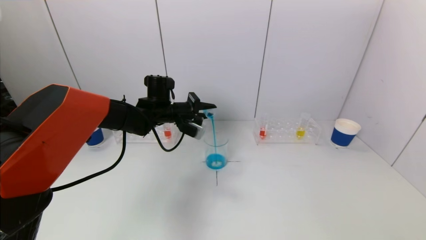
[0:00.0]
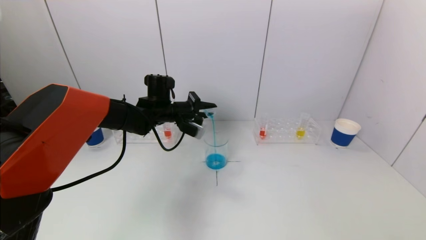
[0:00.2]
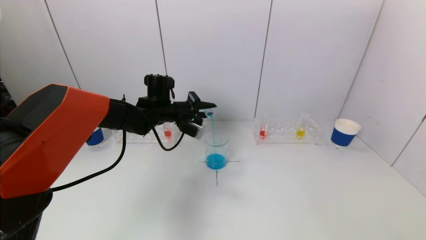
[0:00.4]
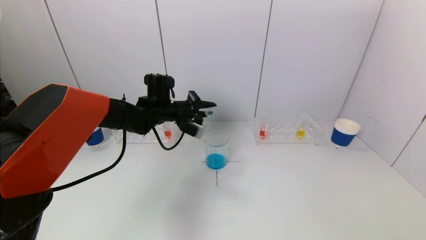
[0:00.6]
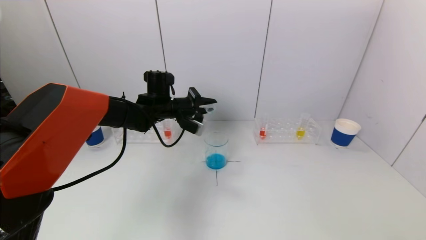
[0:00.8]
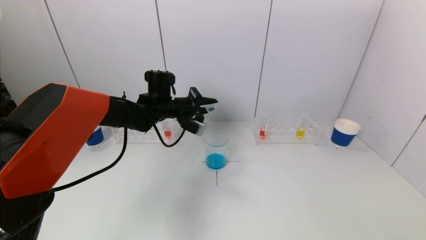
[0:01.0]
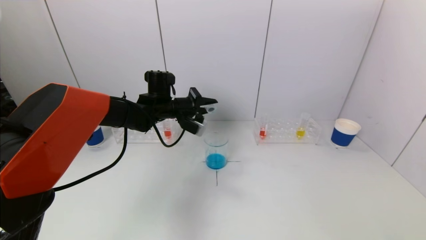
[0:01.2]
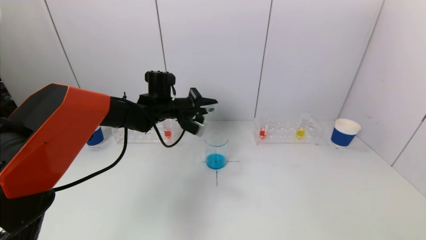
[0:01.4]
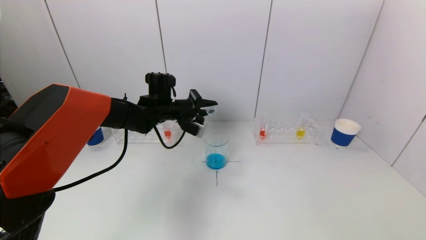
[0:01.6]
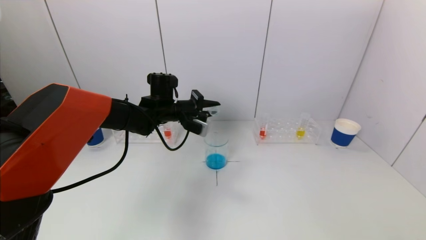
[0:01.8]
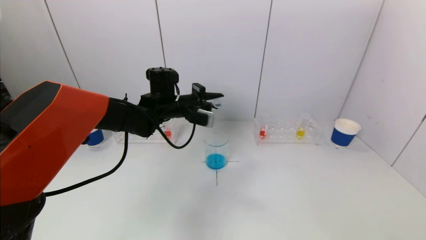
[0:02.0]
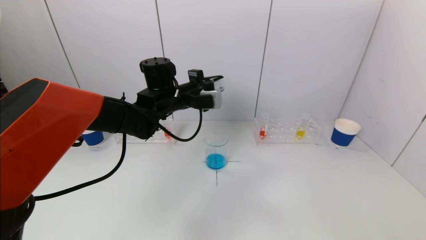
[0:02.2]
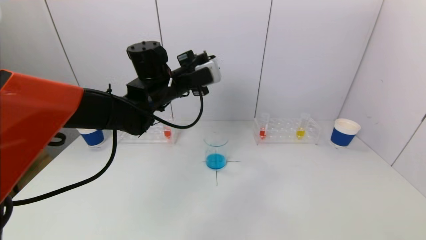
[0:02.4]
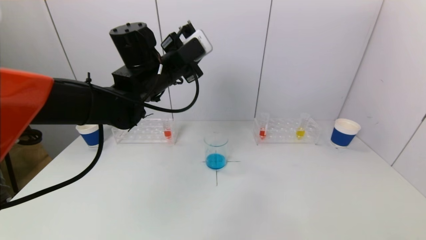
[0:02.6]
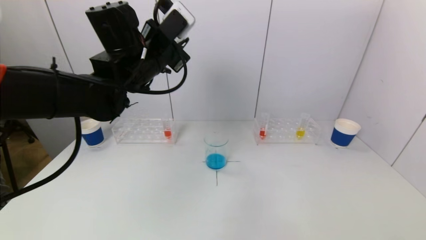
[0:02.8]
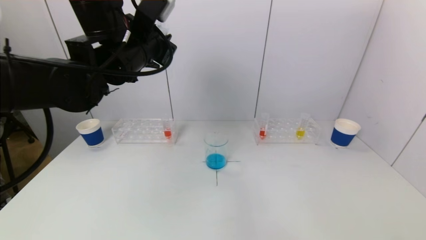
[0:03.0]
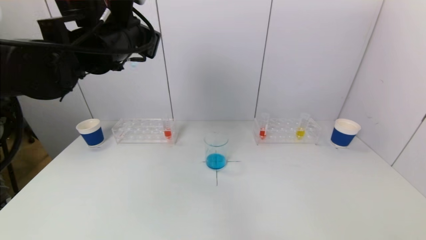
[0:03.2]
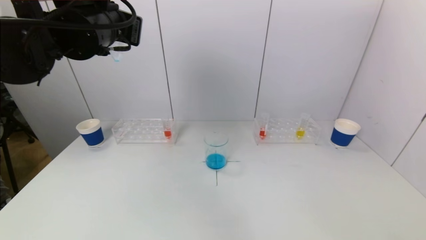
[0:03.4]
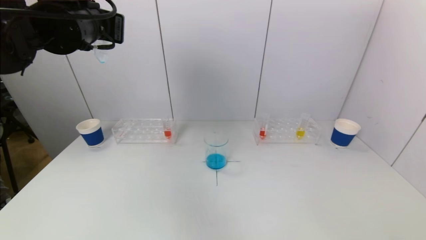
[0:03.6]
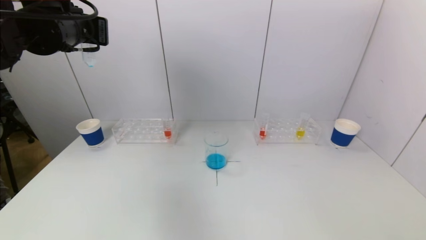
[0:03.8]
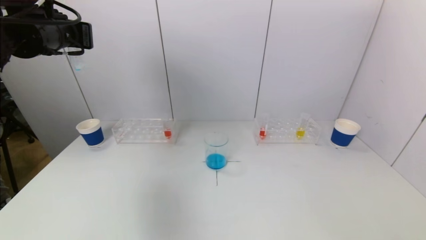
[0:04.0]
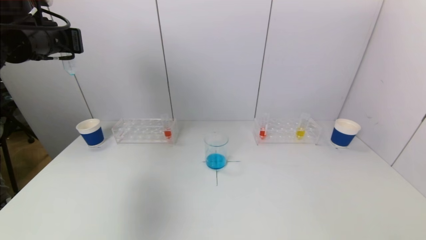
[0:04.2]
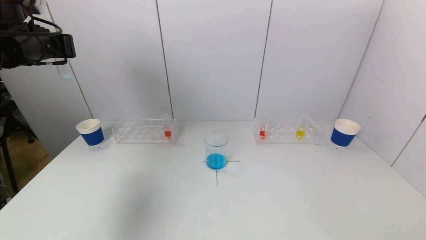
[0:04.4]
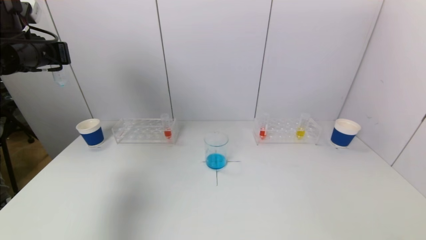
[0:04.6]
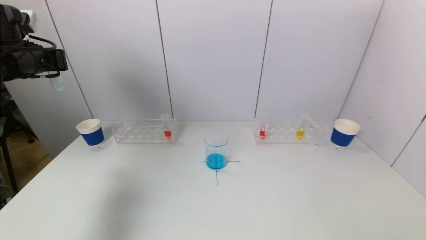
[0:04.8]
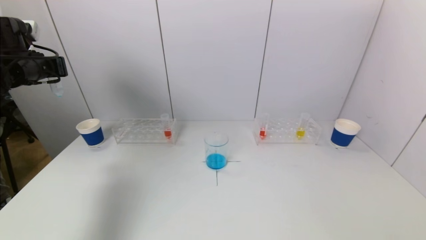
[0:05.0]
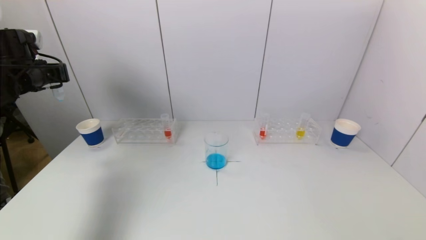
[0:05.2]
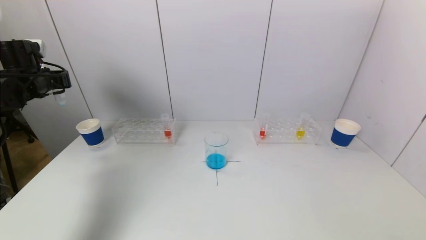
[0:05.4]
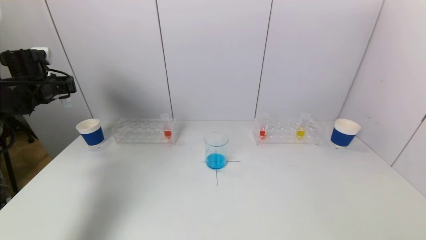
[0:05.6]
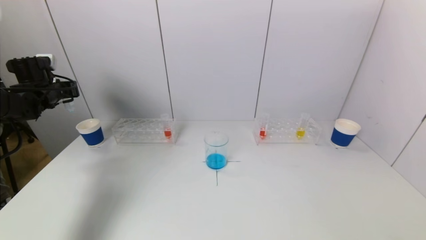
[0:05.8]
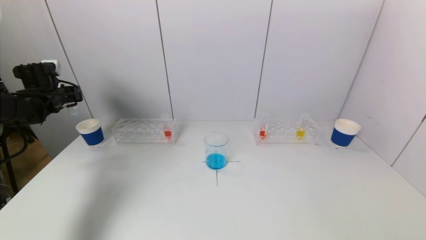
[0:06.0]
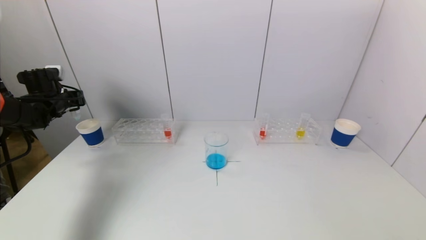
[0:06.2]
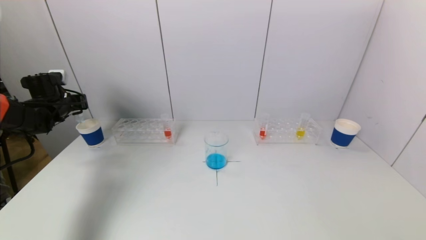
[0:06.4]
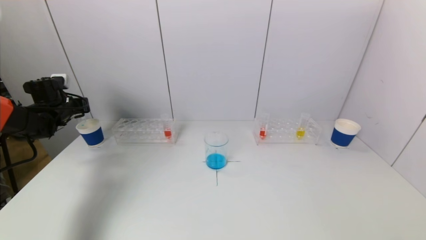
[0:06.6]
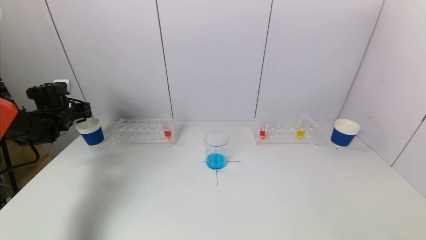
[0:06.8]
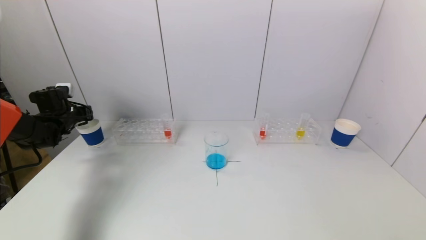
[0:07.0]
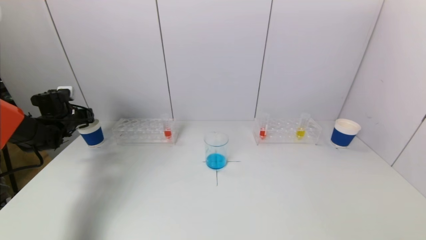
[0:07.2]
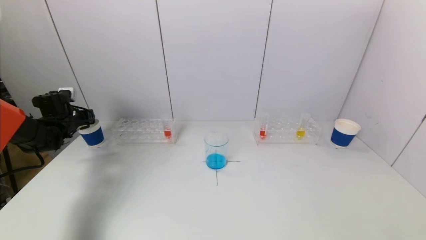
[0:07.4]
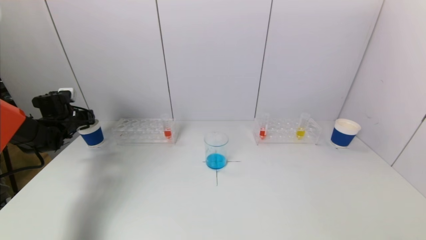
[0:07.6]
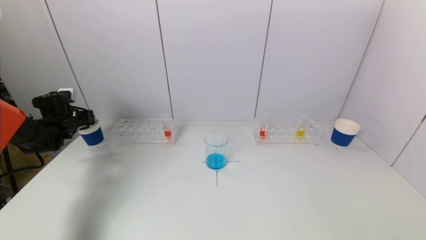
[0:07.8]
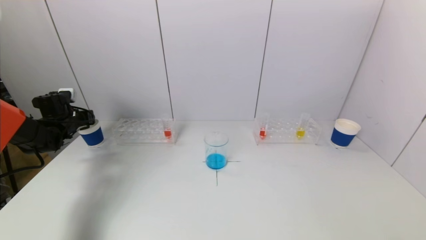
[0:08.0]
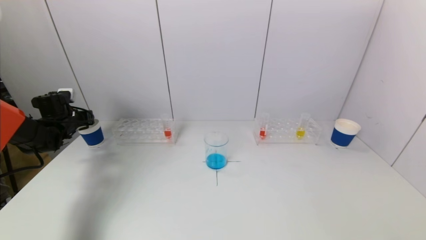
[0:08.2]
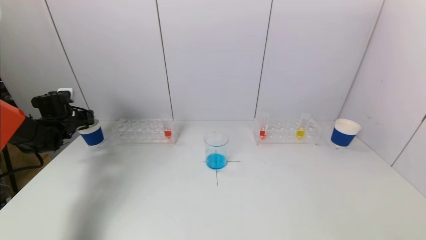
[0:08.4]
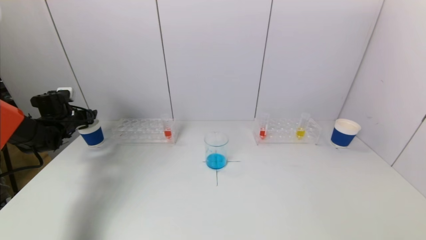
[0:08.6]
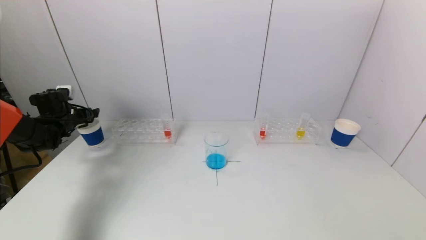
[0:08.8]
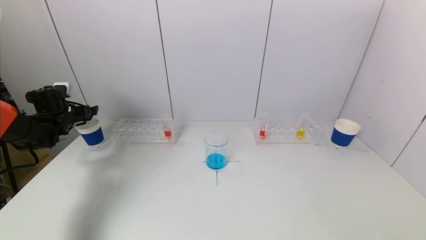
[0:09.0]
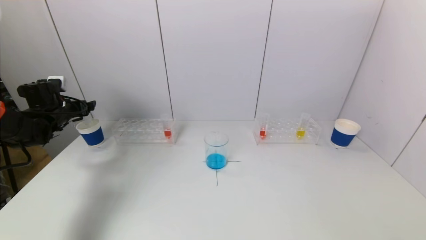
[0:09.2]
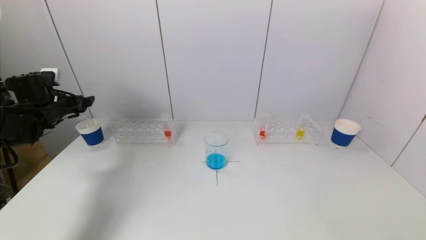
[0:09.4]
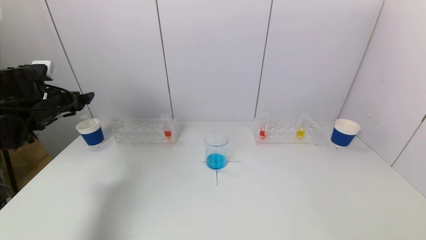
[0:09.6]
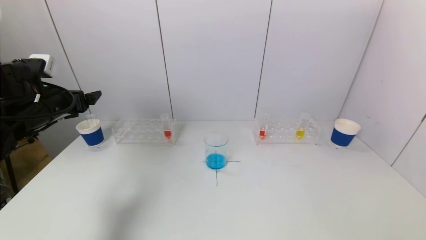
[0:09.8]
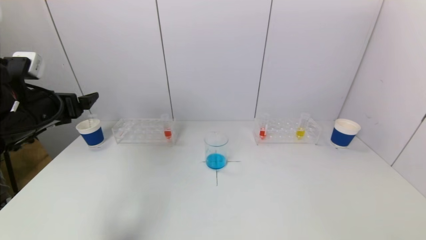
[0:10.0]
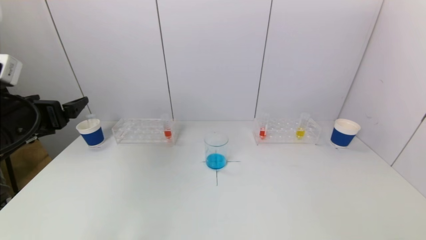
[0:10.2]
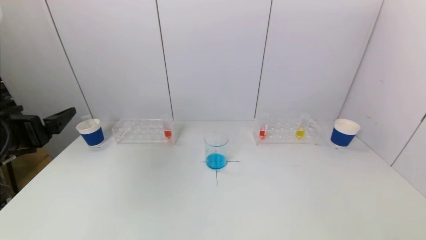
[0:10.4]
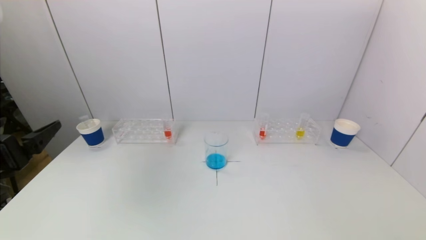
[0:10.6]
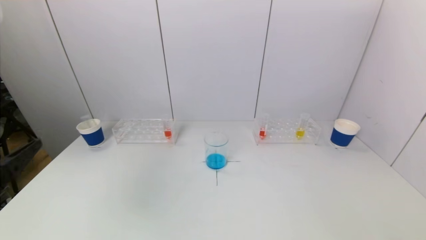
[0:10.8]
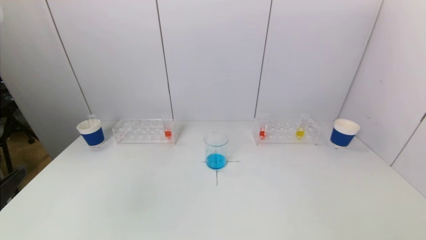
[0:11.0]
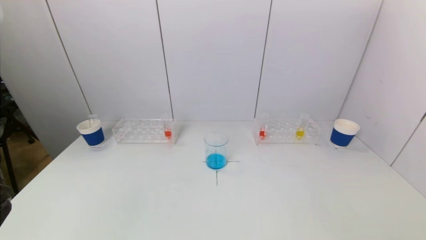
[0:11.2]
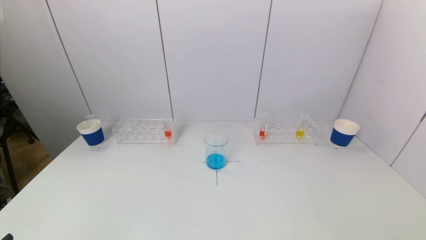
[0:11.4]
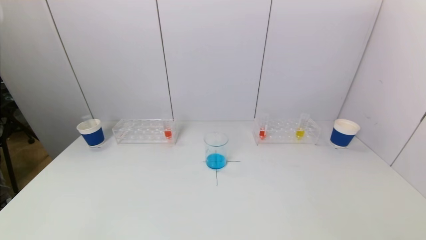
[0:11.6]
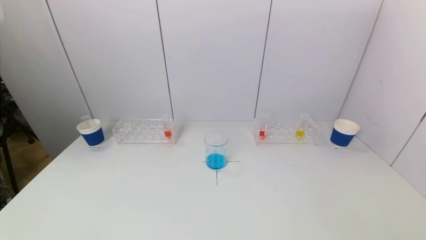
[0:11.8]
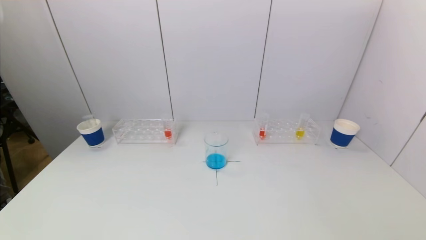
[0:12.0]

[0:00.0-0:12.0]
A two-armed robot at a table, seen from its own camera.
Task of the whole recording: pick up a test tube with pigment on left test tube rack and a test tube with pigment on right test tube rack by grippers and pour them into the beaker.
Step, 0:01.6 to 0:09.0: Place the test tube into the paper cup with the left gripper.
0:00.0 to 0:01.6: The grippers move only a little.
0:01.6 to 0:03.0: The left gripper is displaced upward and backward by roughly 20 cm.
0:03.0 to 0:04.4: The left gripper travels to the left by some 20 cm.
0:04.4 to 0:06.0: The left gripper travels downward, to the left and forward by approximately 20 cm.
0:06.0 to 0:07.6: The left gripper moves downward, approximately 10 cm.
0:07.6 to 0:09.0: The left gripper opens its fingers.
0:09.0 to 0:10.4: The left gripper is displaced backward and to the right by some 30 cm.
0:10.4 to 0:12.0: The left gripper shifts approximately 25 cm backward and downward.

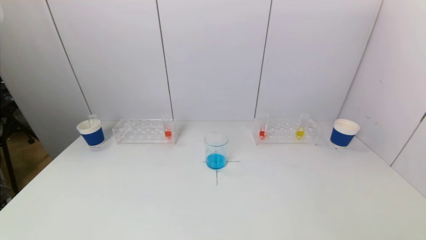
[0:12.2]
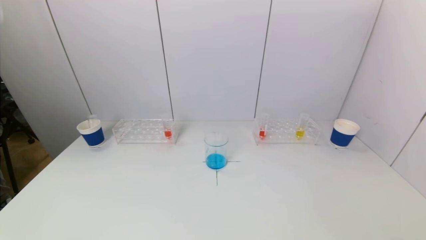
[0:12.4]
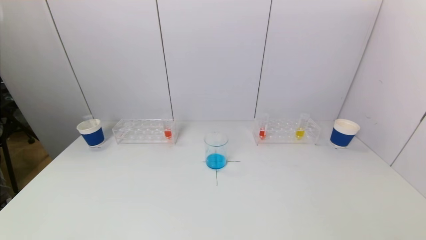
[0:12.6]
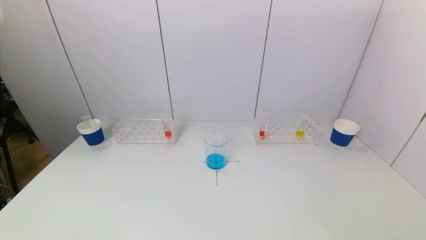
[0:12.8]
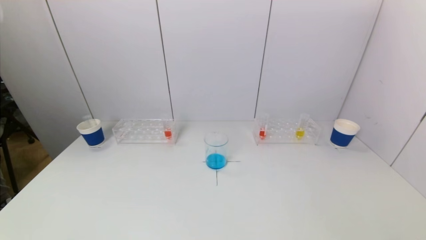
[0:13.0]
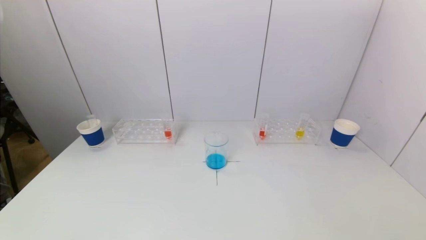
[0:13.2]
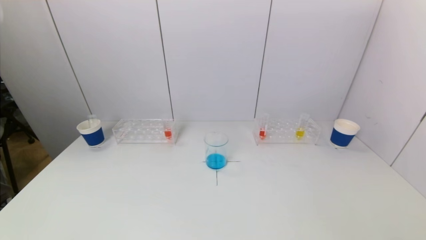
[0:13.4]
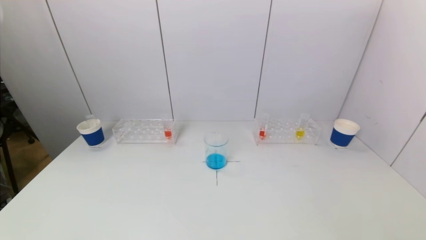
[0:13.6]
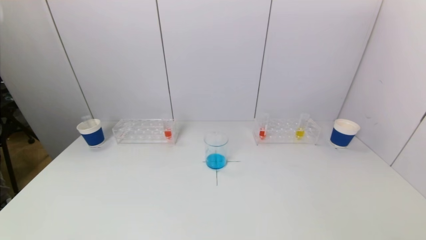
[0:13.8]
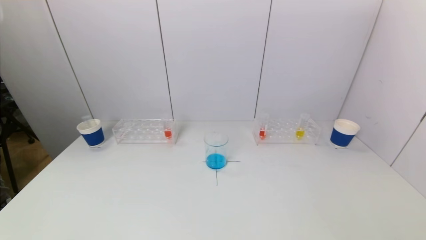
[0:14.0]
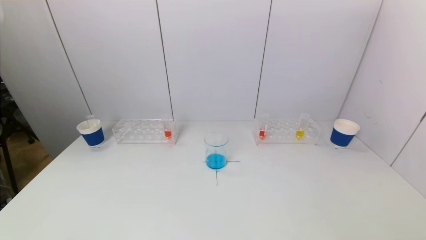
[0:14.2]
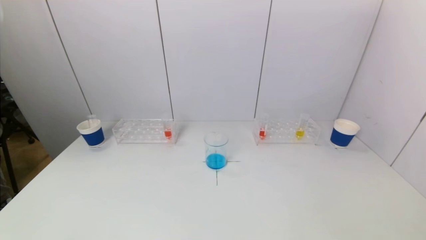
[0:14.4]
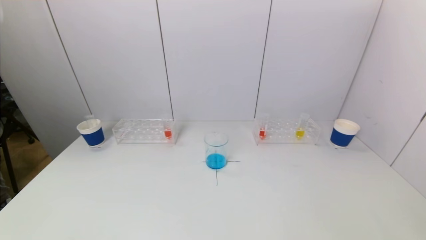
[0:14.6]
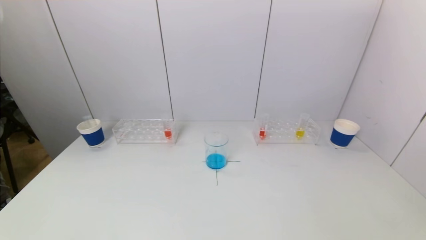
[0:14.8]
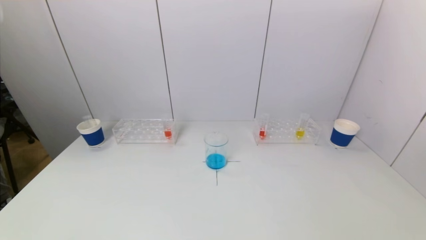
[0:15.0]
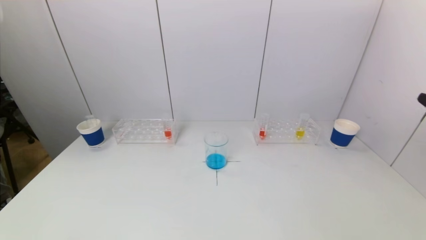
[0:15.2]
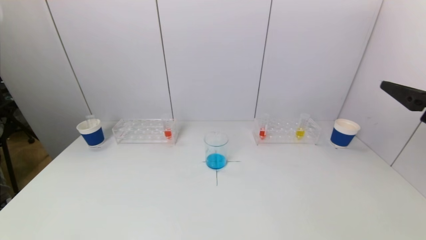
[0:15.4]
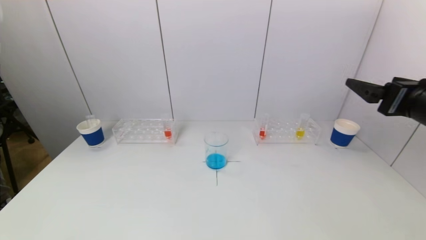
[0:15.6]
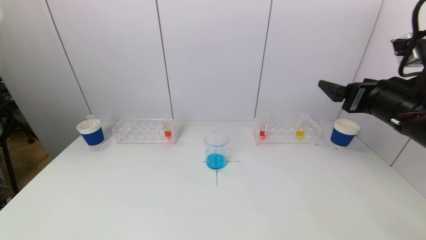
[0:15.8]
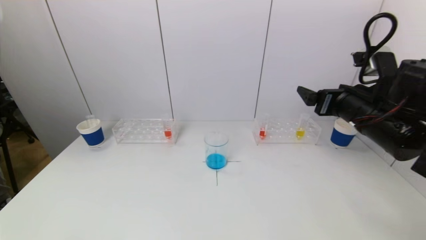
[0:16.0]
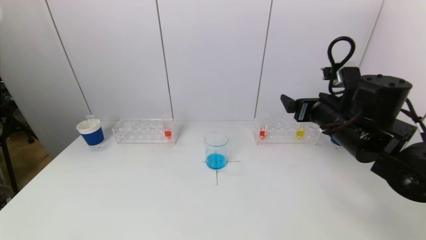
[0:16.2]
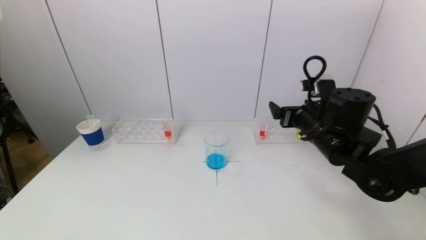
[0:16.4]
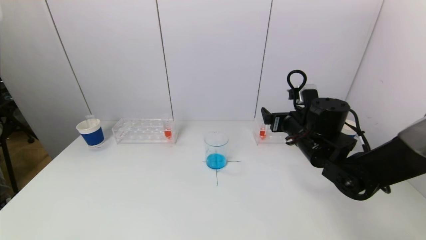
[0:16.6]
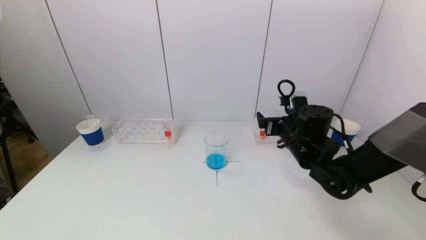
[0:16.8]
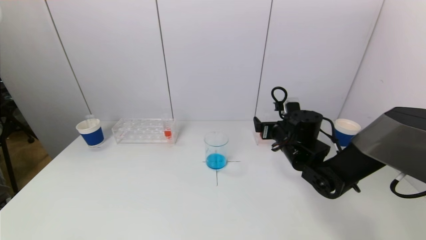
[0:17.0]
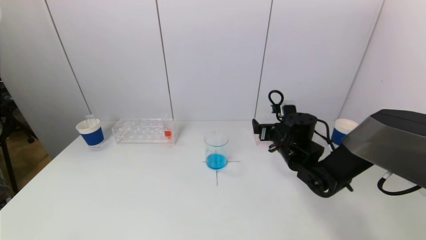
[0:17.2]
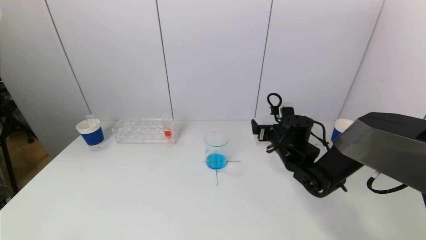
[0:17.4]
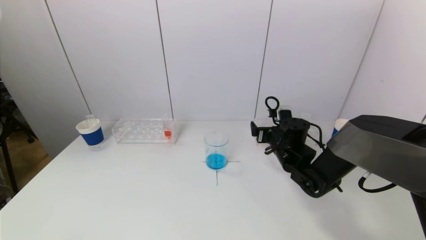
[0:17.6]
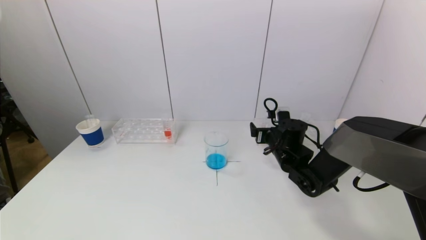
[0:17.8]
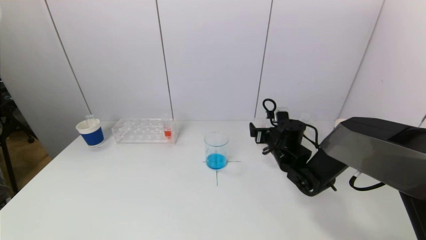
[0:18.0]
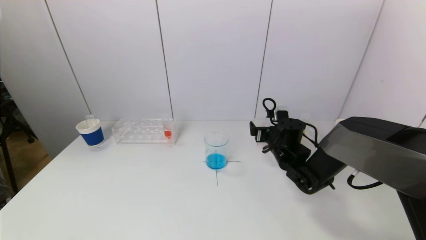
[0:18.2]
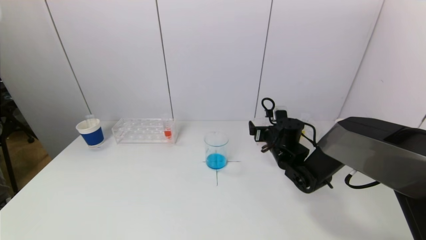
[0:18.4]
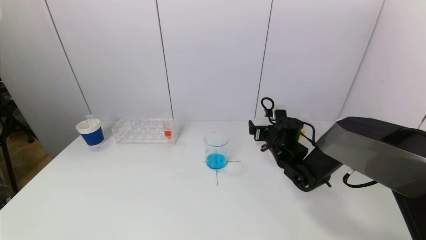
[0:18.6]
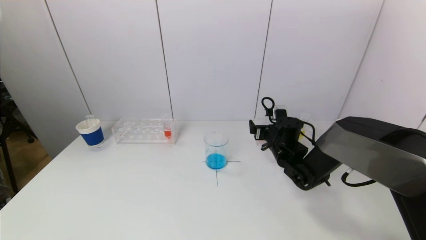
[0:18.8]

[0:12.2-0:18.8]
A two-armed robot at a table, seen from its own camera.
Task of the whole recording: pick up a test tube with pigment on left test tube rack and a test tube with pigment on right test tube rack by grippers and pour them into the beaker.
0:13.8 to 0:15.4: The right gripper travels forward and upward by approximately 25 cm.
0:15.4 to 0:17.2: The right gripper goes roughly 30 cm forward, downward and to the left.
0:17.2 to 0:18.8: The right gripper shifts by approximately 5 cm.
